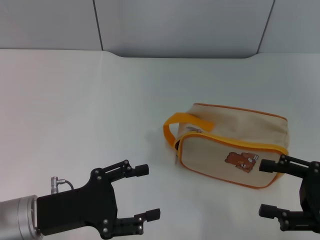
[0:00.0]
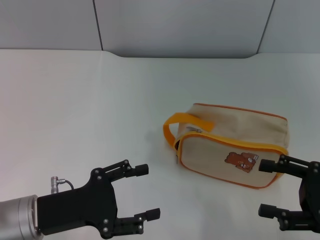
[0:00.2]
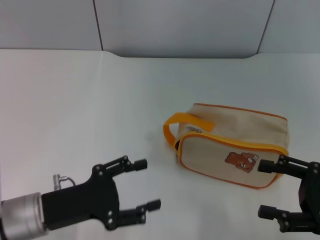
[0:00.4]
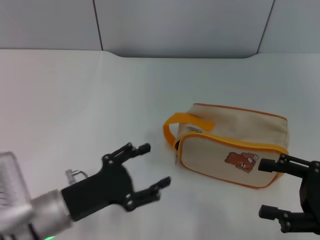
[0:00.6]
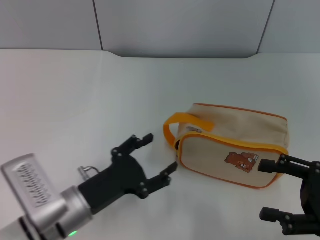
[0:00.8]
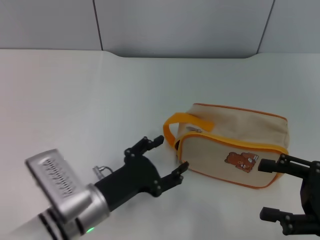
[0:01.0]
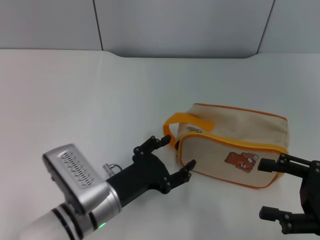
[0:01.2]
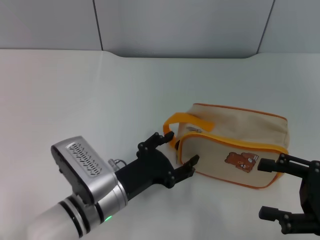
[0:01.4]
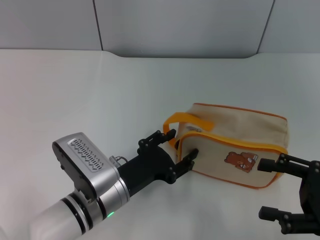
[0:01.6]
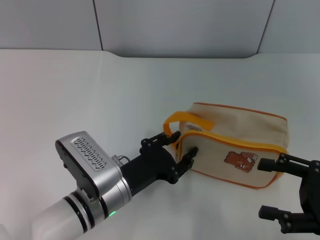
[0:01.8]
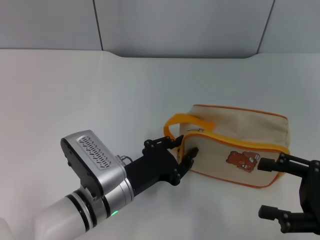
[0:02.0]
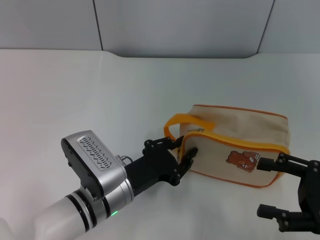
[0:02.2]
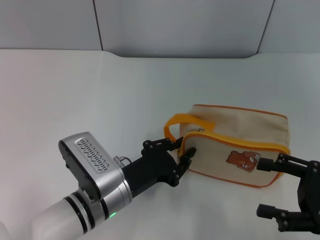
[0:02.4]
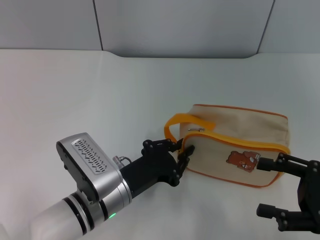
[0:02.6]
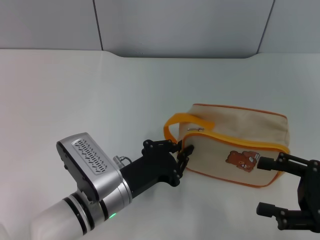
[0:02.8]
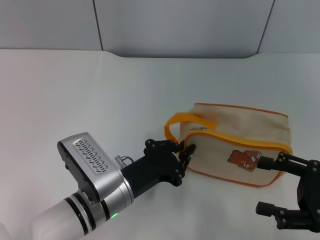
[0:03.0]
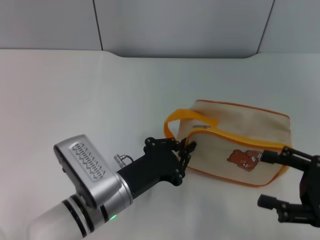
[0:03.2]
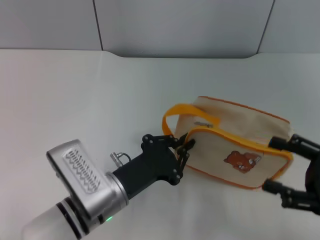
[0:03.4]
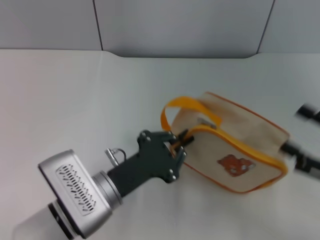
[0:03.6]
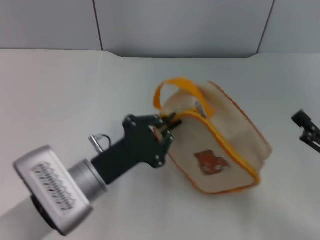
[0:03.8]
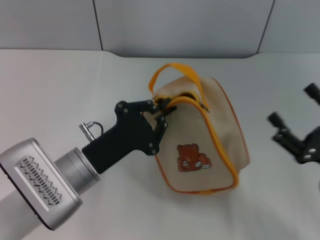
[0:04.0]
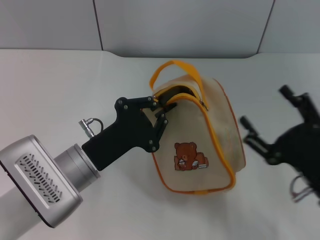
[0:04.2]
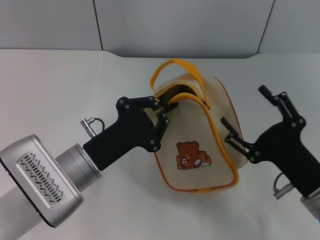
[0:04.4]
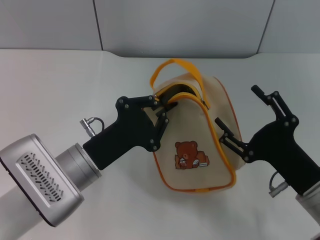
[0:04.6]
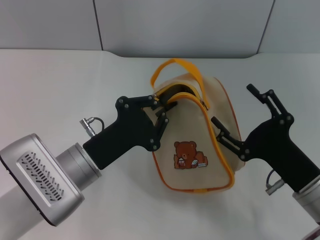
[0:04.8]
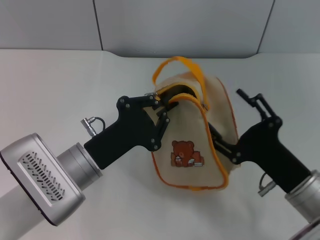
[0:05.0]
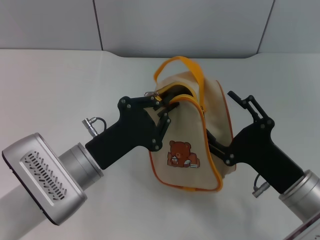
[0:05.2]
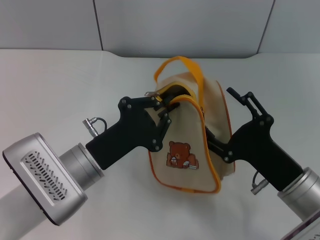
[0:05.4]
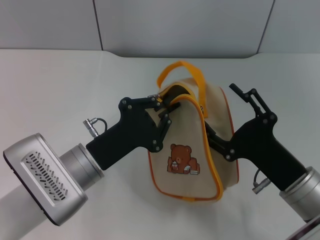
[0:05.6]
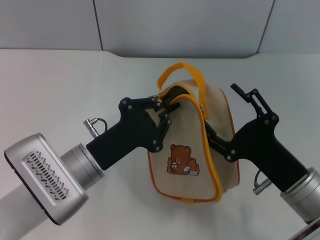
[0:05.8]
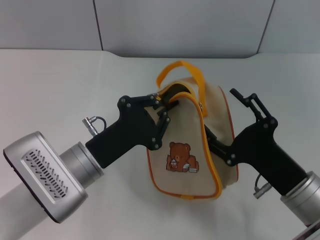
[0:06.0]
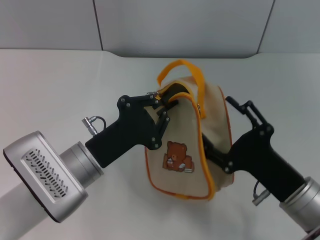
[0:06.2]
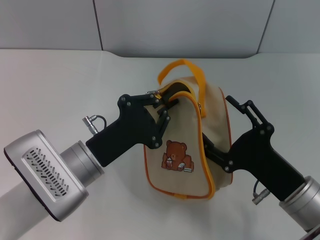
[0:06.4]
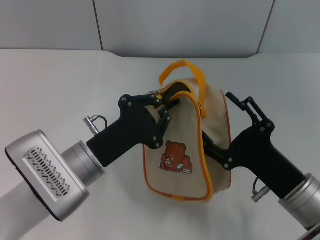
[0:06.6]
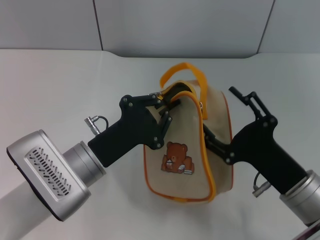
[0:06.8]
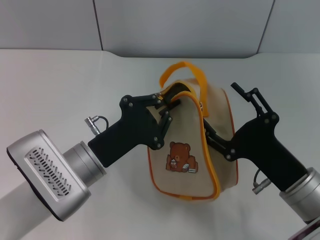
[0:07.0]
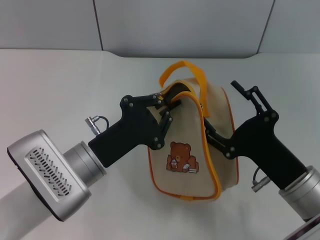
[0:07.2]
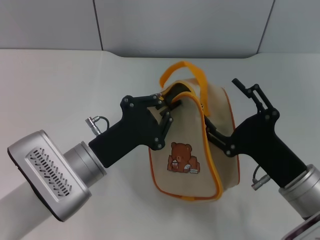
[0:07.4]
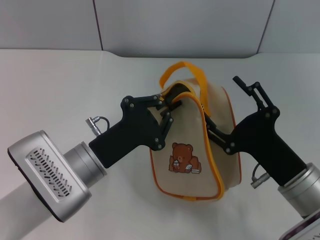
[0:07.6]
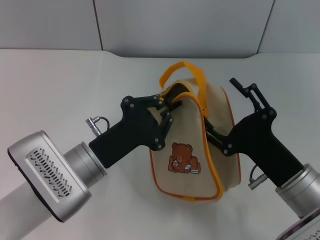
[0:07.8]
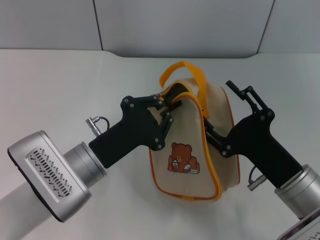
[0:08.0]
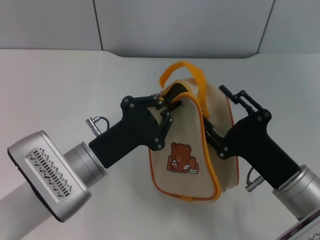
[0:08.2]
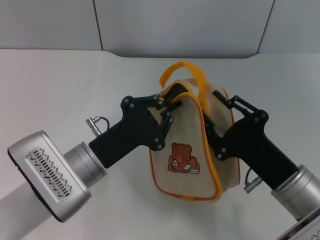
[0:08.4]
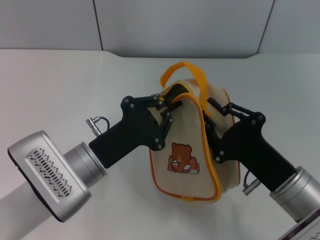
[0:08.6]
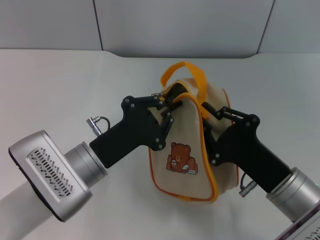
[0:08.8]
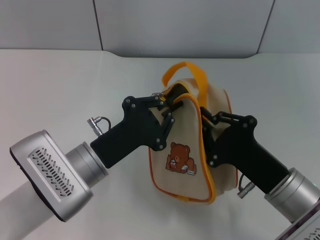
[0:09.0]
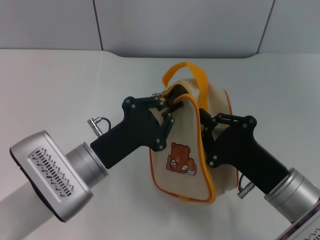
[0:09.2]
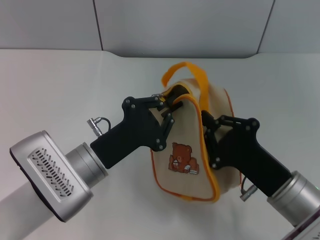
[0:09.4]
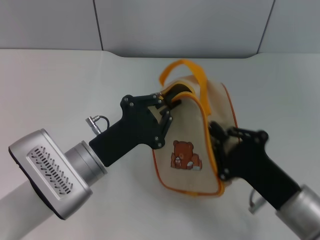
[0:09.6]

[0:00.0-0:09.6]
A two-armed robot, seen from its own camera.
Step, 0:00.0 to 0:04.0: Pick up the bag with left gripper.
0:00.0 to 0:01.6: The left gripper goes about 10 cm to the right.
0:01.6 to 0:03.2: The left gripper closes up.
0:03.2 to 0:04.8: The left gripper moves roughly 5 cm. Meanwhile the right gripper travels to the left by some 10 cm.
0:04.8 to 0:08.0: The grippers make only small movements.
0:08.0 to 0:09.6: The right gripper closes its fingers.

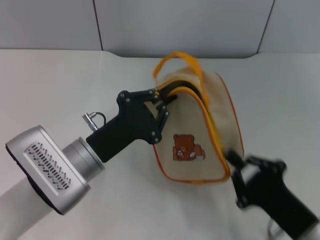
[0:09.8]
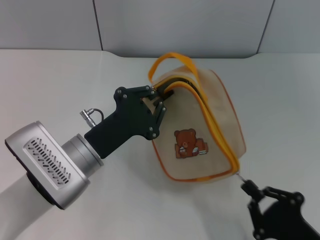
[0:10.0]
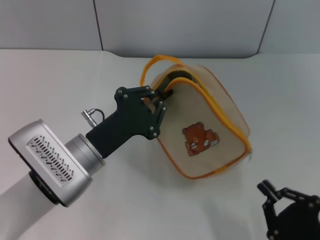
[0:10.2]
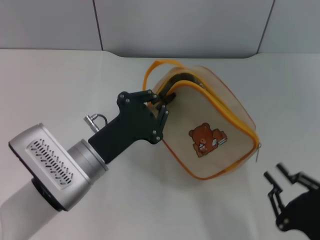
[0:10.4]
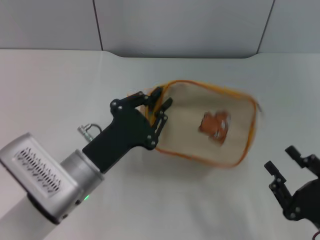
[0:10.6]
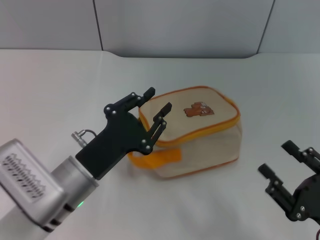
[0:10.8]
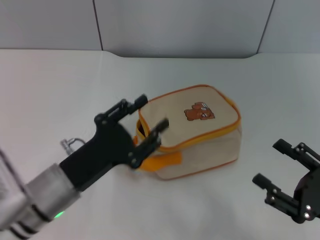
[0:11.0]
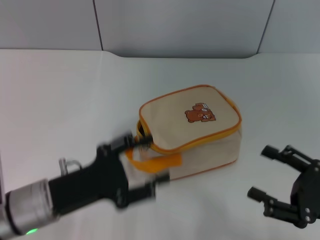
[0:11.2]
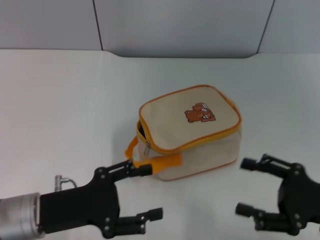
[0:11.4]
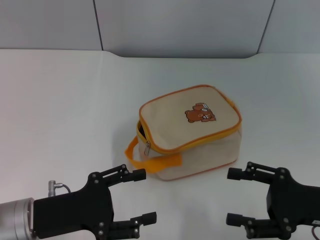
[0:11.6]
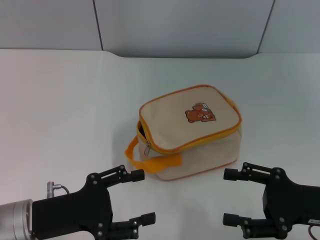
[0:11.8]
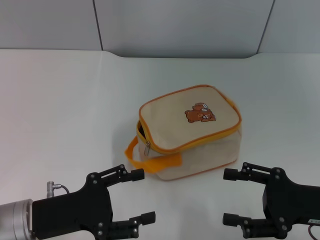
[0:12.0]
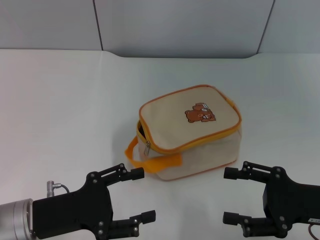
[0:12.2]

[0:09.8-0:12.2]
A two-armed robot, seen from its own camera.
Step, 0:10.4 to 0:10.8: Place the bag on the table with left gripper.
0:09.8 to 0:11.0: The right gripper heads to the right, covering roughly 5 cm, and opens its fingers. The left gripper opens its fingers.
0:11.0 to 0:12.2: The left gripper travels to the left by roughly 5 cm, and opens. Meanwhile the right gripper shifts roughly 5 cm forward.

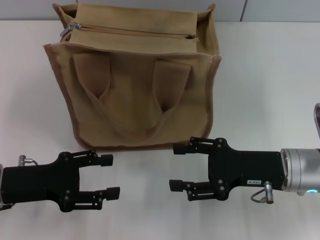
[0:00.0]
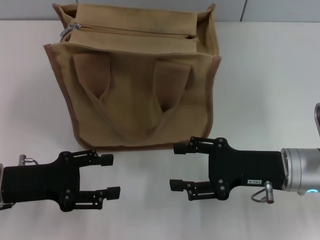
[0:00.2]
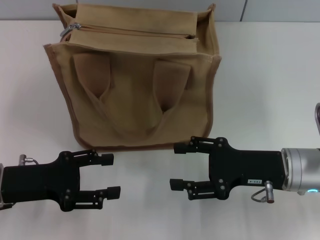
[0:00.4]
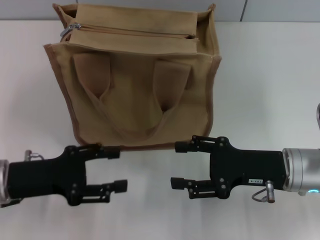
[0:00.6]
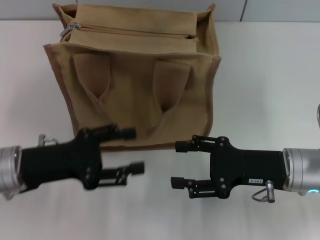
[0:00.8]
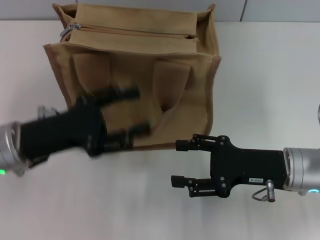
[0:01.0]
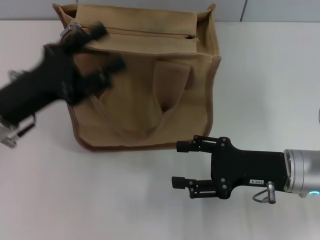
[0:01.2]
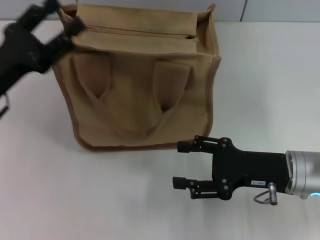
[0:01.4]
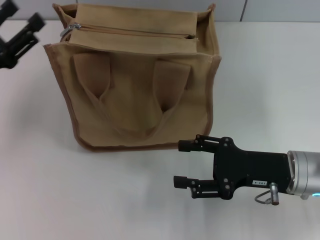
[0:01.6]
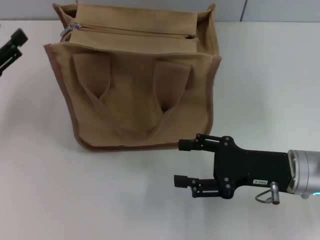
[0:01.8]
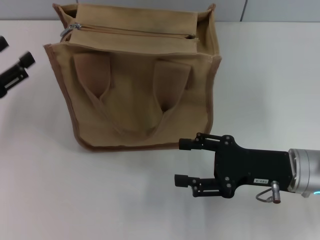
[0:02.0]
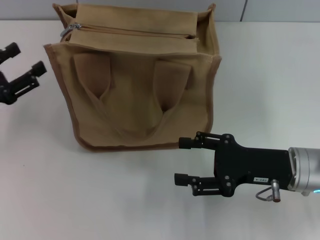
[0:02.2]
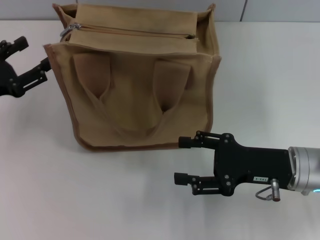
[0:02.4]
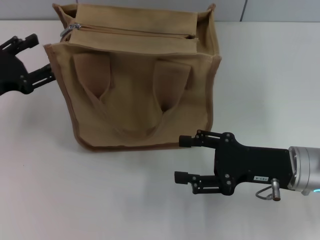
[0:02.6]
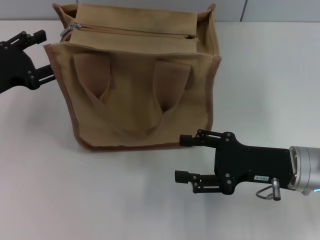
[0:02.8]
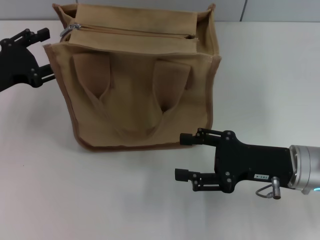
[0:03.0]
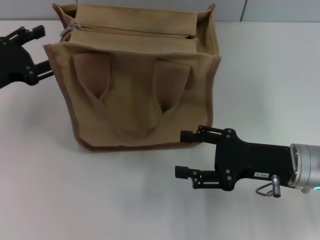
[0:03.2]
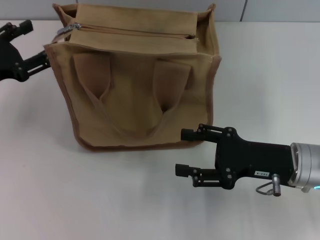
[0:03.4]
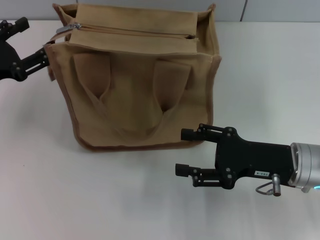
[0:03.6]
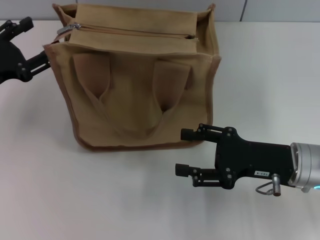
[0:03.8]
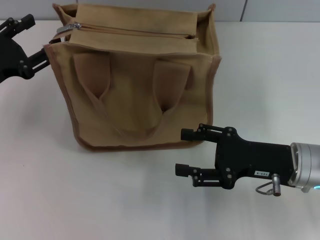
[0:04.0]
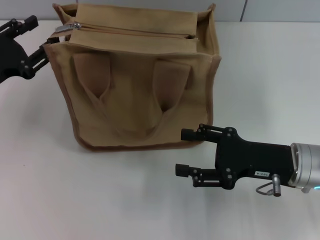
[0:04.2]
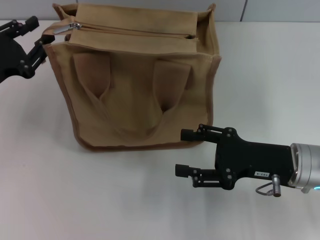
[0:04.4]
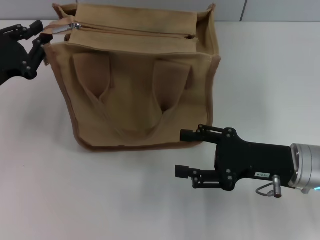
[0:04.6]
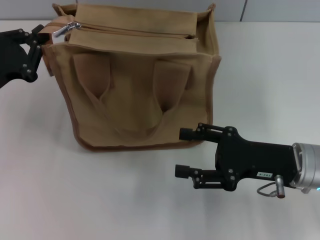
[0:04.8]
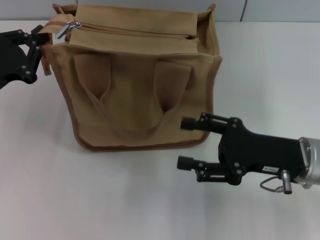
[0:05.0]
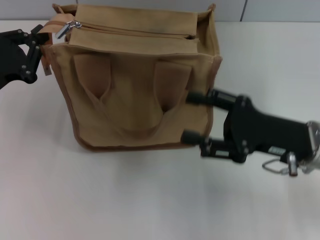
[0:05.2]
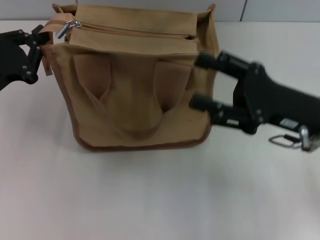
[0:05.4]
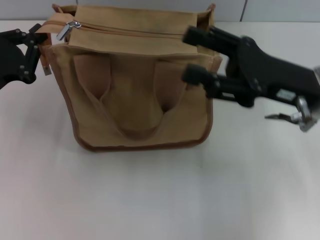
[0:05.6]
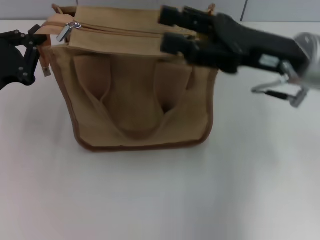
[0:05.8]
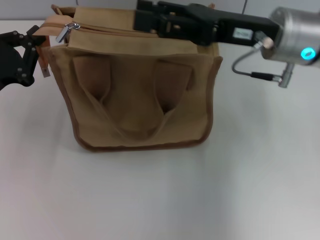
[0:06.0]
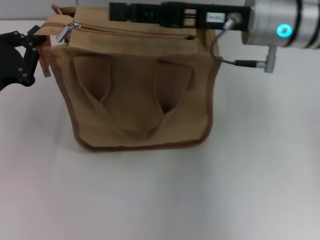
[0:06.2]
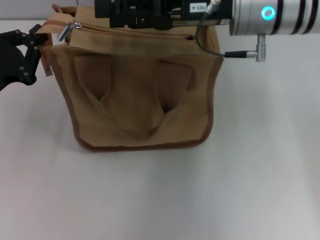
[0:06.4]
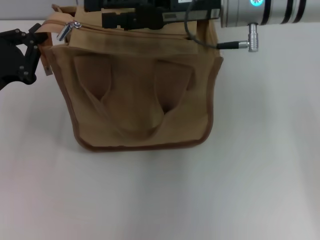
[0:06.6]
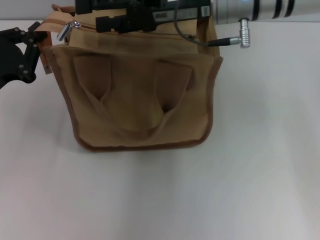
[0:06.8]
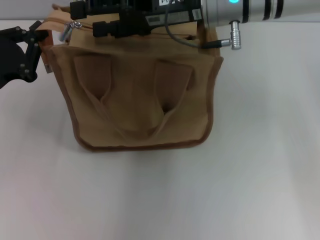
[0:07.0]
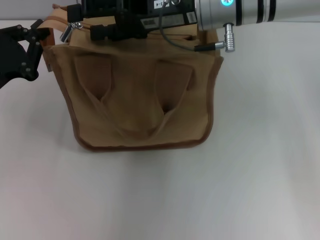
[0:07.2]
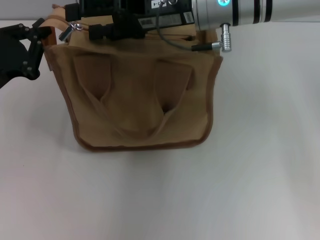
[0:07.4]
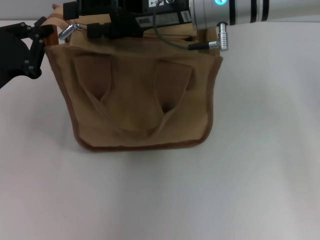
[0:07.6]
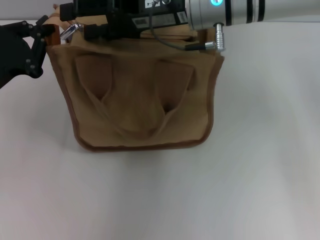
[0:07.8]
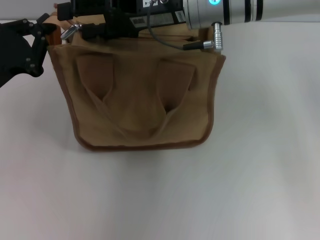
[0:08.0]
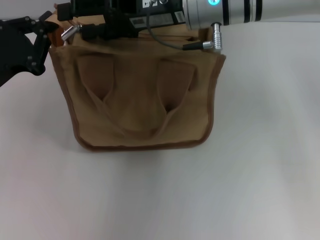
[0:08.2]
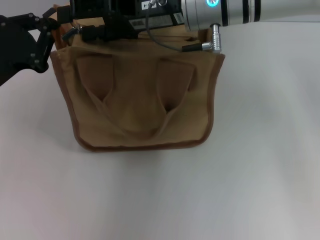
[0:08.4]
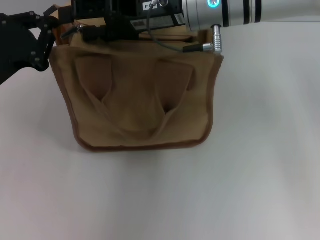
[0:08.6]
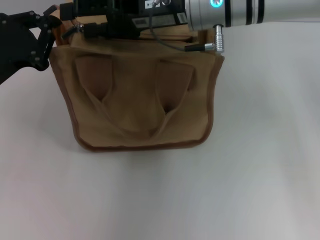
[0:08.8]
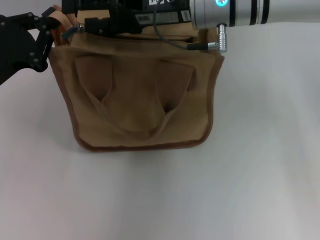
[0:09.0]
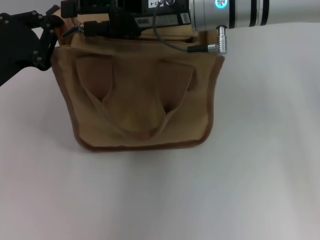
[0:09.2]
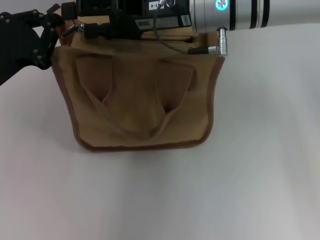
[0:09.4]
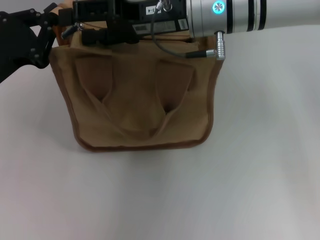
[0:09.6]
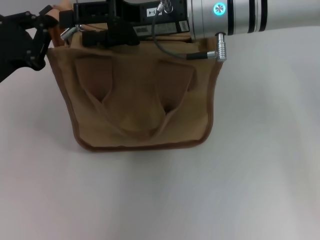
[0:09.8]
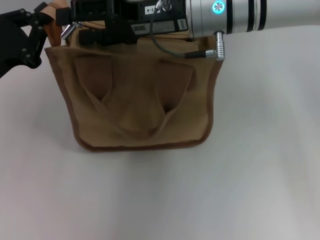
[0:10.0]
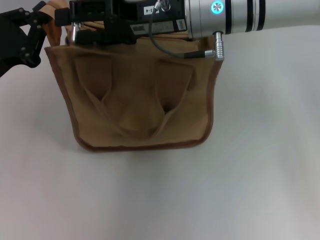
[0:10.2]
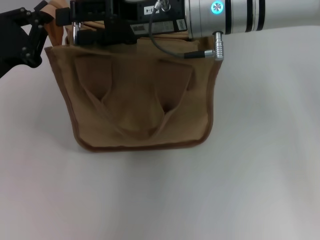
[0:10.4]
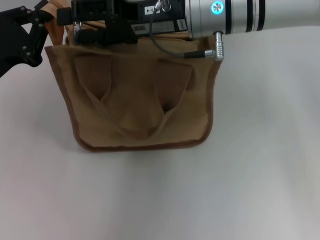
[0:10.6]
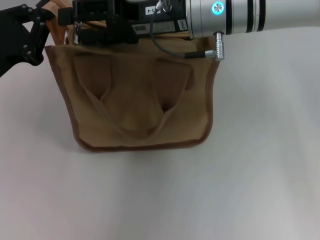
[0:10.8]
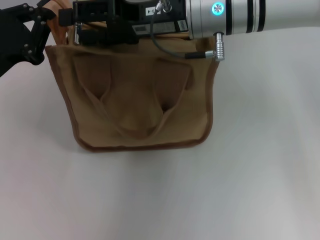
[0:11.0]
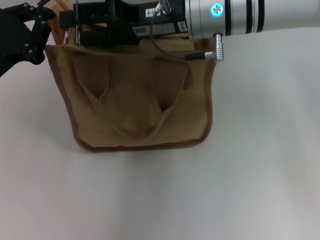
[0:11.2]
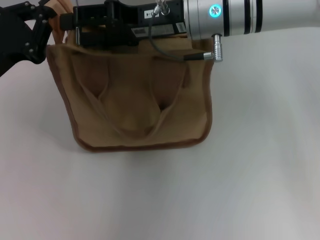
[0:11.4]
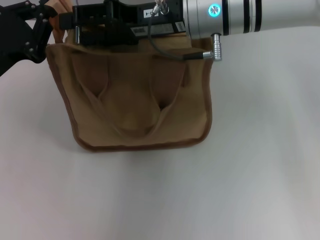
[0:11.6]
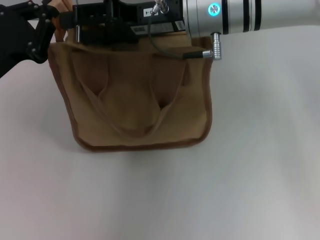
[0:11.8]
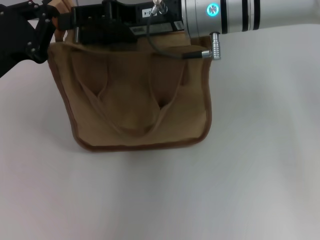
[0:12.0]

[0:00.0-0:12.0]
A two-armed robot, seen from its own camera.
0:00.0 to 0:01.6: The left gripper moves about 5 cm.
0:03.0 to 0:04.4: There are only small adjustments of the grippers.
0:04.4 to 0:06.0: The right gripper heads upward, forward and to the left, covering roughly 15 cm. The left gripper closes up.
0:06.0 to 0:07.6: The right gripper moves to the left, about 10 cm.
0:07.6 to 0:09.0: The grippers stay close to where they were, moving slightly.
0:09.0 to 0:10.4: Neither gripper changes place.
0:10.4 to 0:12.0: The grippers make only small movements.
